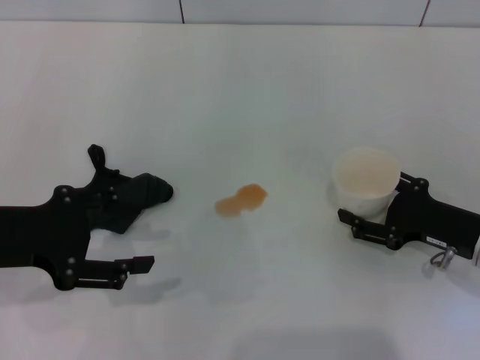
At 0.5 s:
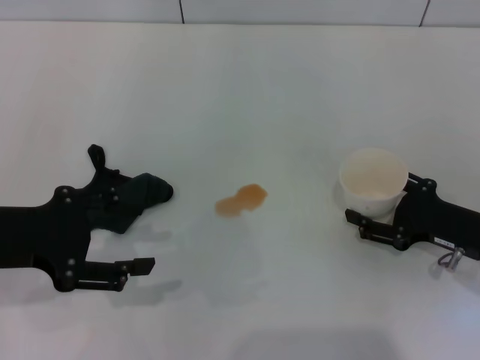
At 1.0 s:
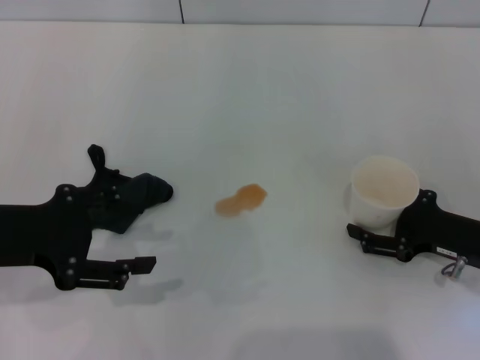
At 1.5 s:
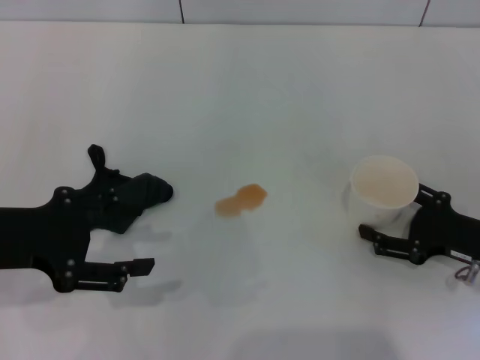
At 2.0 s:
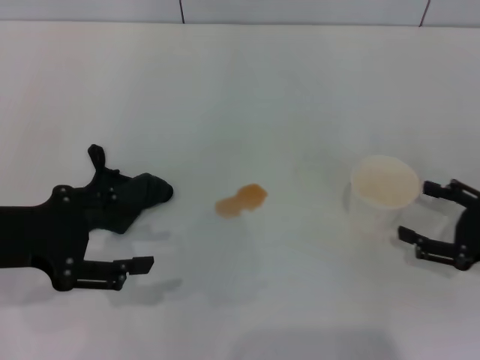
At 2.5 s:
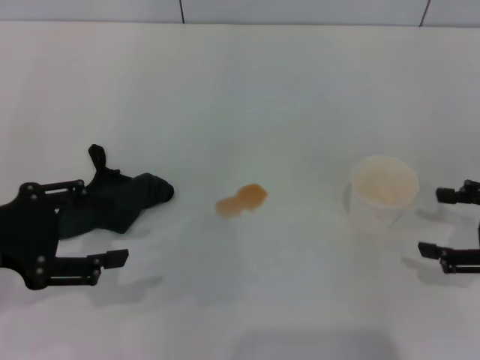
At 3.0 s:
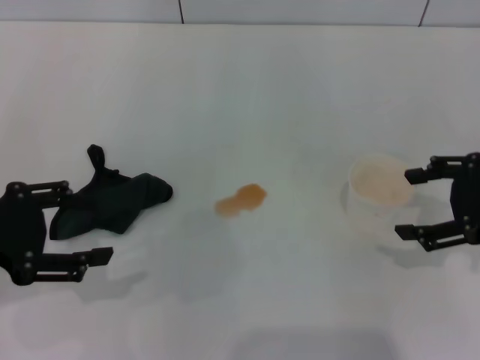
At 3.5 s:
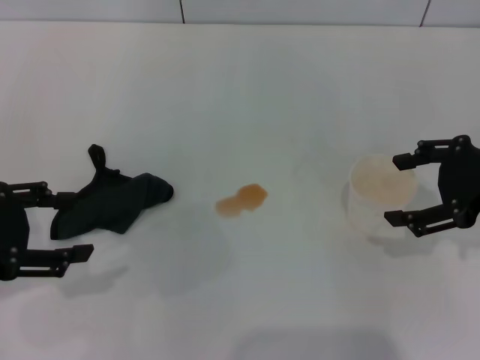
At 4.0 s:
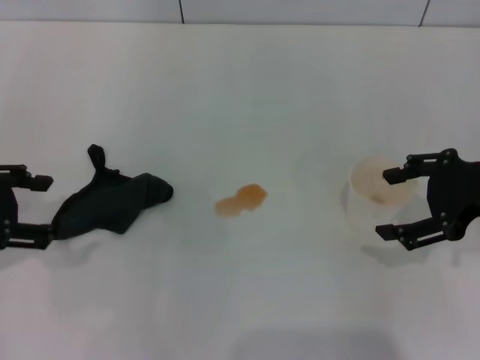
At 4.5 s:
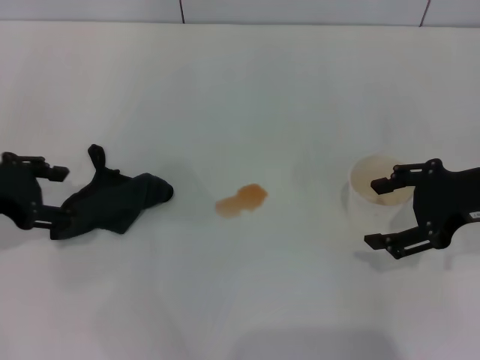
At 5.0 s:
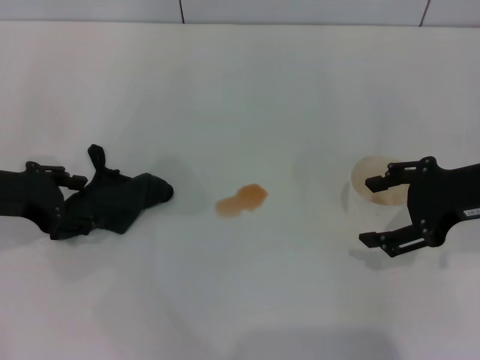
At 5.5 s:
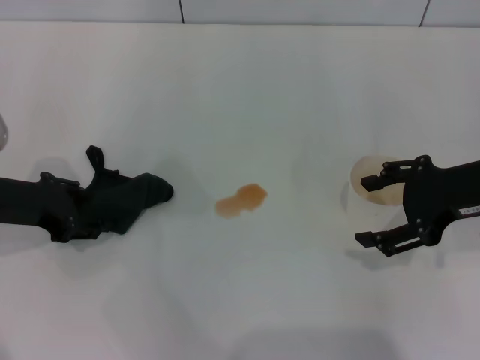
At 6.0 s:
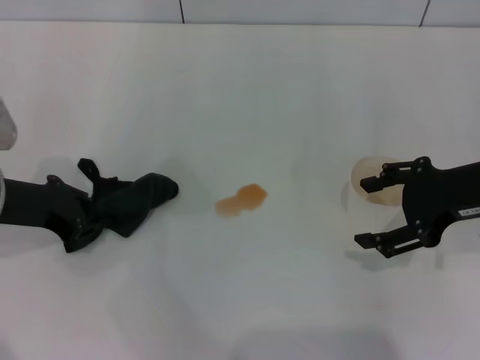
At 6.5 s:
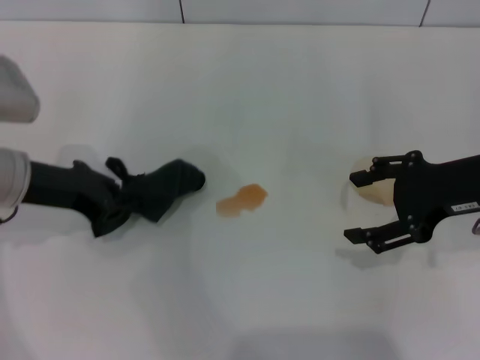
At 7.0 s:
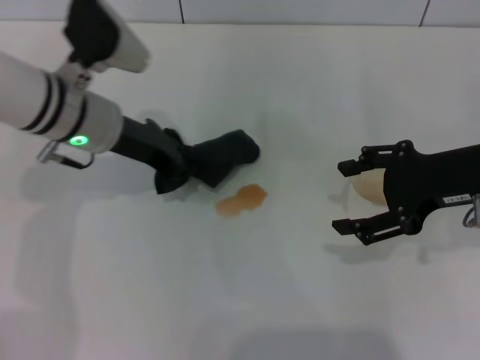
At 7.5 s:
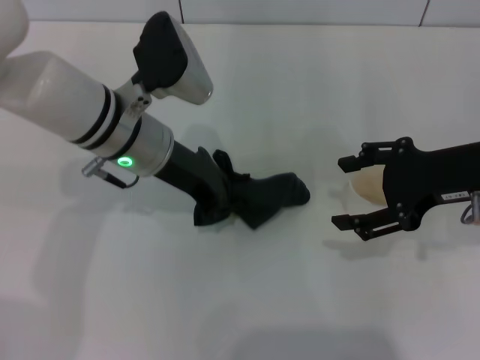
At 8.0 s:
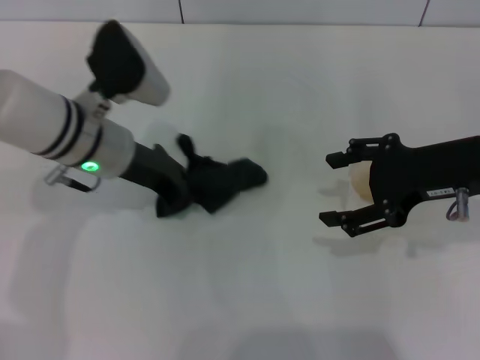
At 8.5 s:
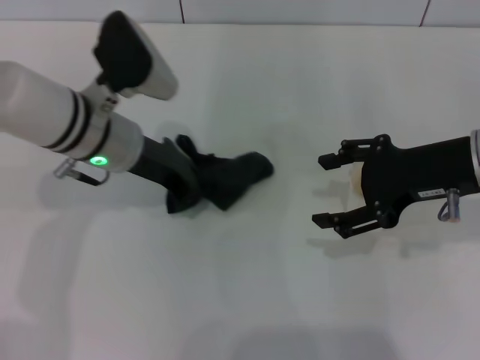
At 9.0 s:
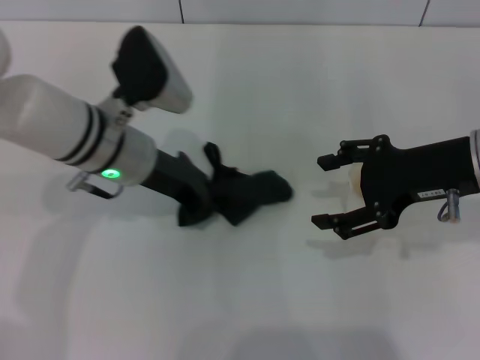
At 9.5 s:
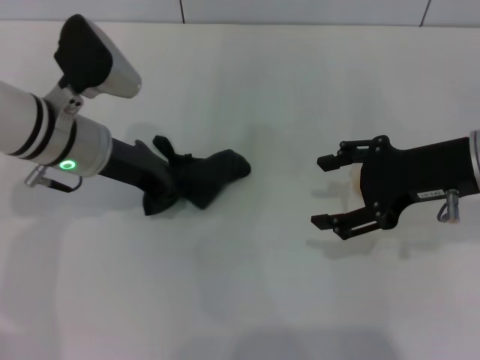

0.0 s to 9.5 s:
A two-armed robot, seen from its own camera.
Step, 2.0 to 5.5 s: Grasp the rag with the left gripper.
Step, 6.0 to 8.5 s: Wipe the stains off the table with the left gripper.
0.0 to 2.0 s: The right gripper moves to the right, roughly 5 cm.
2.0 to 4.0 s: The left gripper moves some 5 cm; the right gripper heads upward, to the left and forward, covering about 15 cm.
4.0 to 5.5 s: The left gripper is displaced downward by about 5 cm.
5.5 to 7.5 s: The left gripper heads to the right, covering approximately 15 cm, and closes.
7.5 to 9.5 s: The left gripper shifts approximately 5 cm to the left.

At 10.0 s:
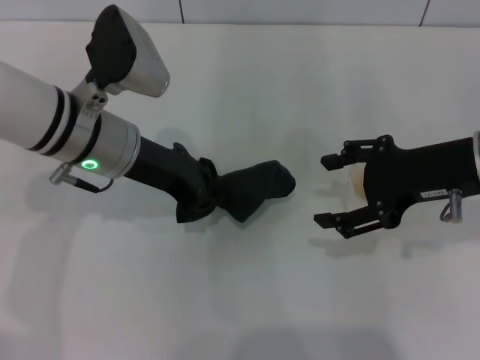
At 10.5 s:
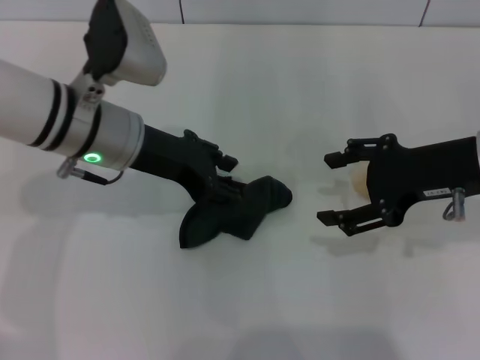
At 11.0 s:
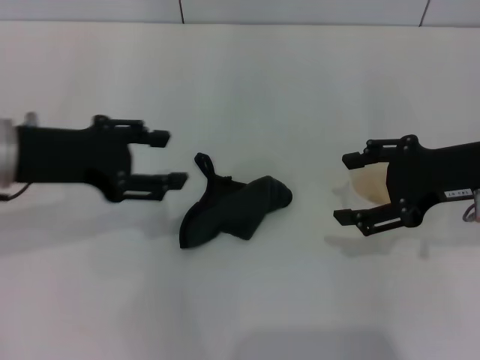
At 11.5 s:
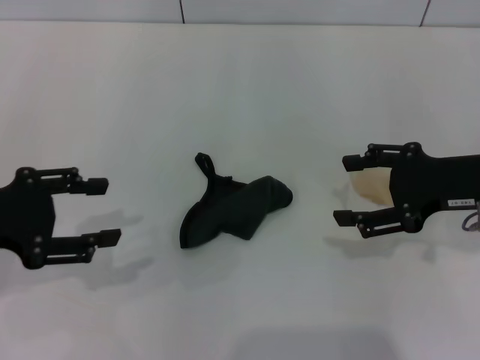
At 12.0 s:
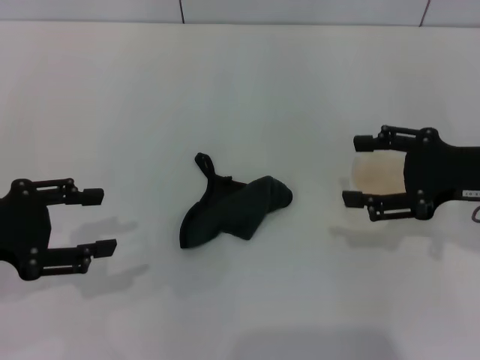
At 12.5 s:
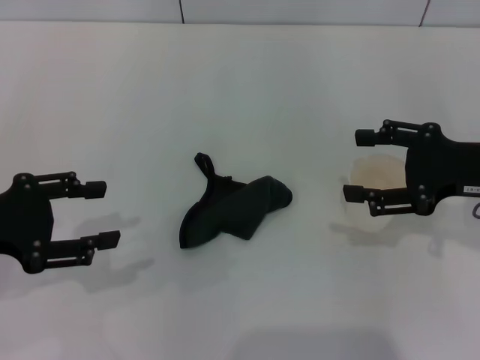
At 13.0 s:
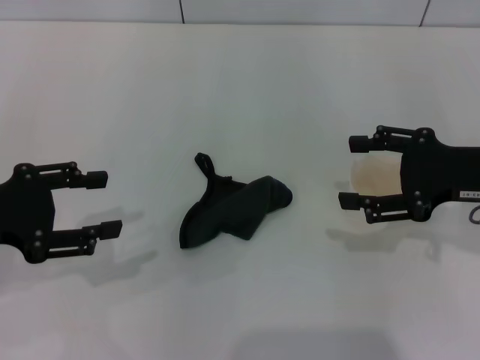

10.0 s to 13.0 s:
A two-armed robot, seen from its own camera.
10.0 to 11.5 s: The left gripper shifts some 20 cm to the left and backward, and opens.
11.5 to 13.0 s: The grippers stay close to where they were, moving slightly.

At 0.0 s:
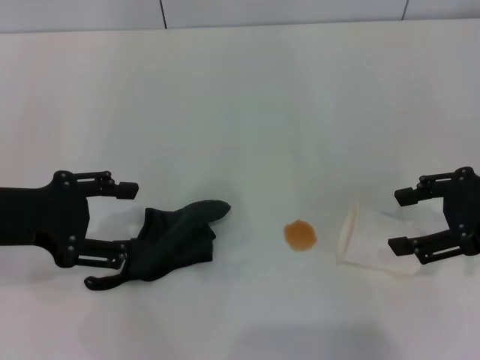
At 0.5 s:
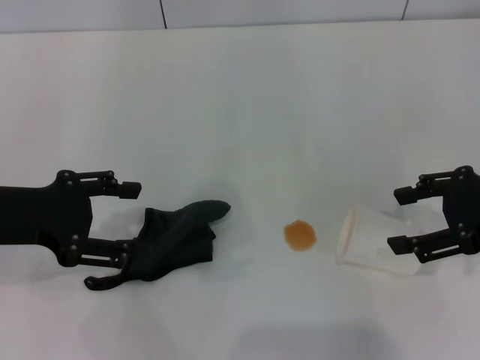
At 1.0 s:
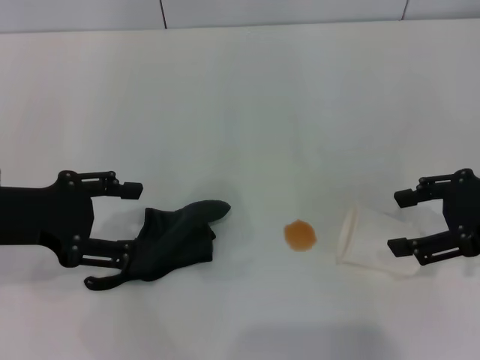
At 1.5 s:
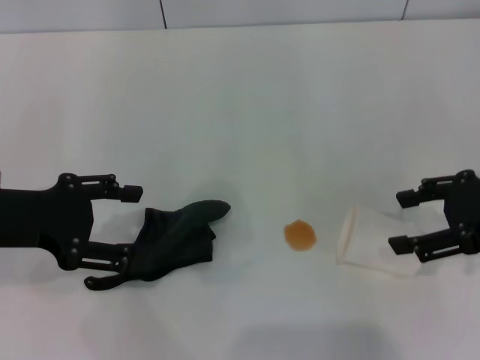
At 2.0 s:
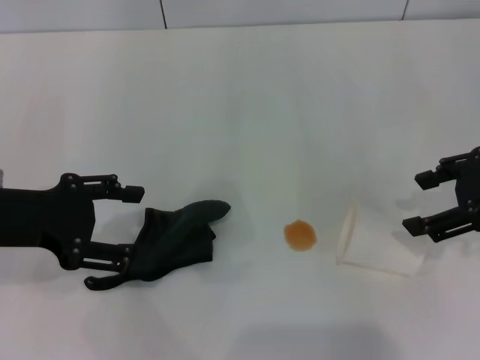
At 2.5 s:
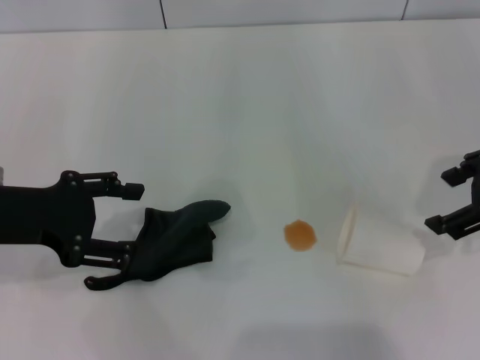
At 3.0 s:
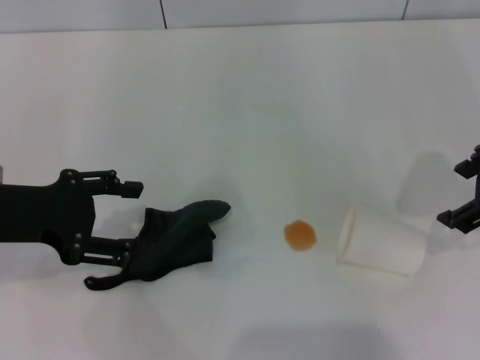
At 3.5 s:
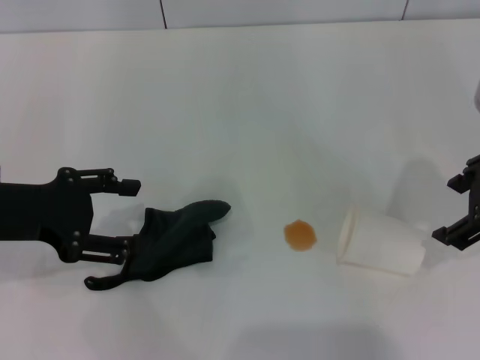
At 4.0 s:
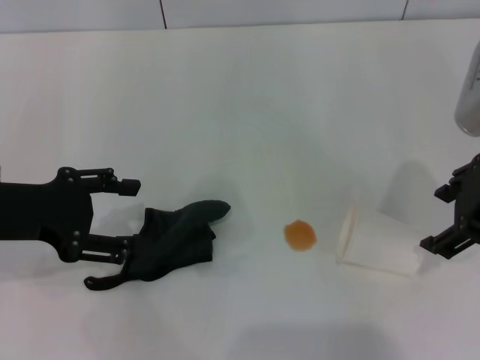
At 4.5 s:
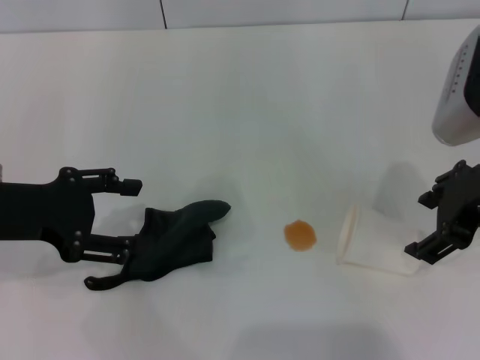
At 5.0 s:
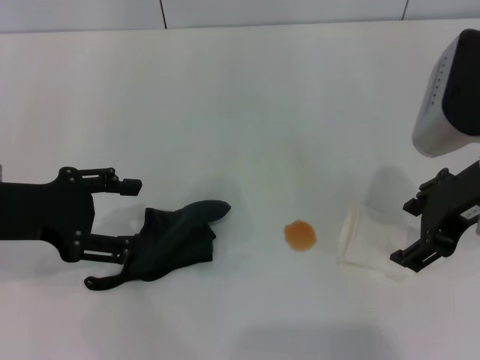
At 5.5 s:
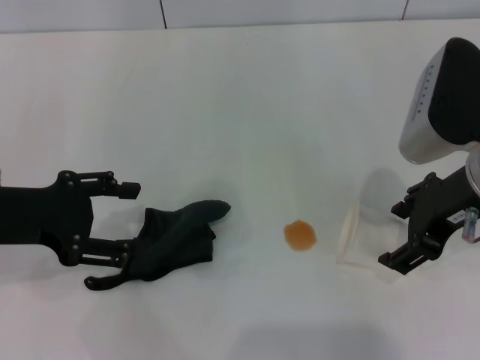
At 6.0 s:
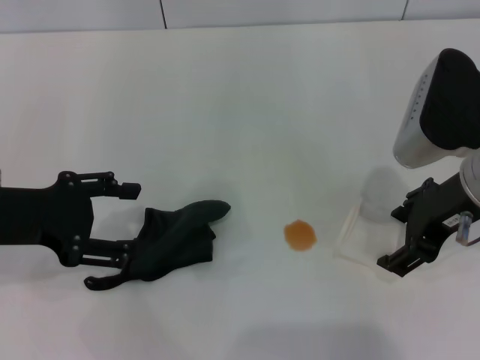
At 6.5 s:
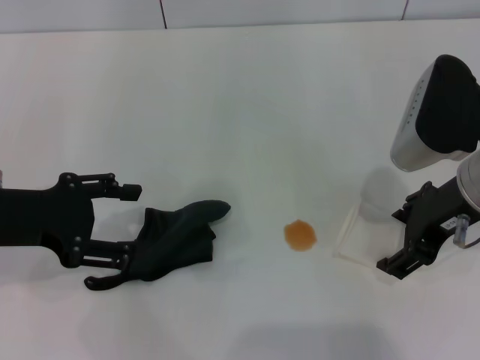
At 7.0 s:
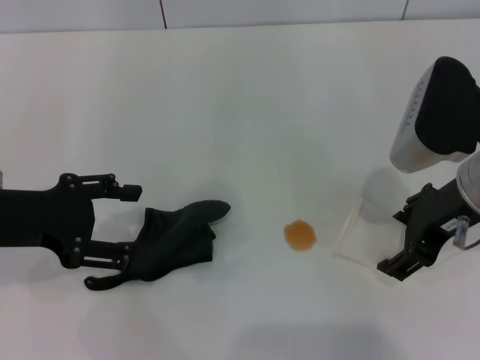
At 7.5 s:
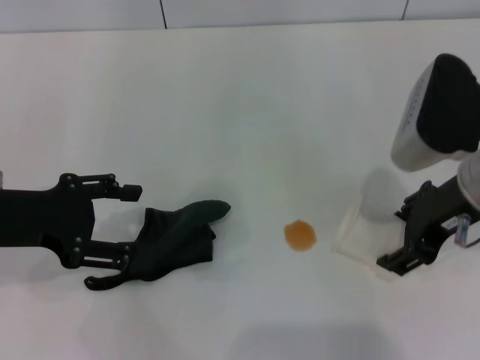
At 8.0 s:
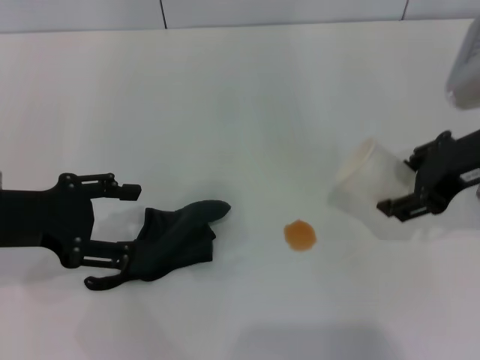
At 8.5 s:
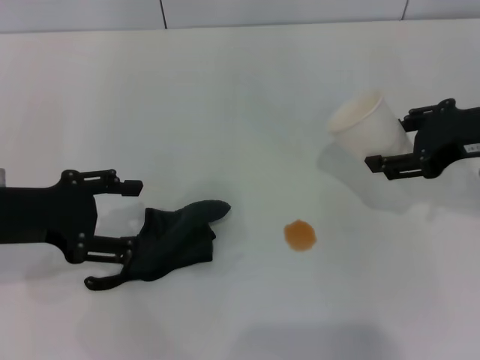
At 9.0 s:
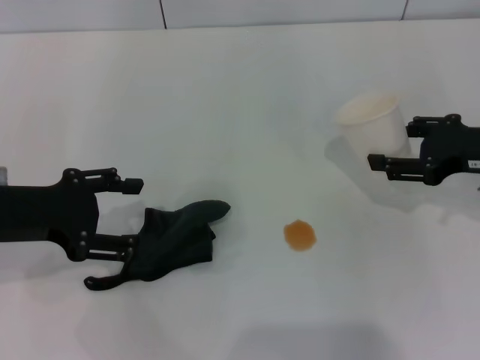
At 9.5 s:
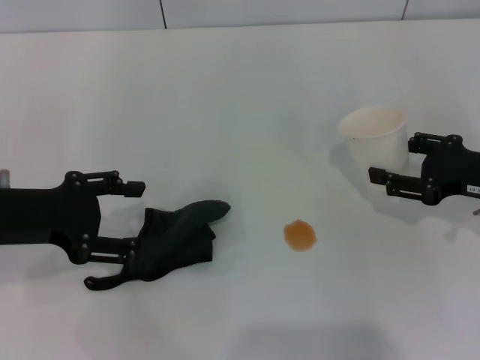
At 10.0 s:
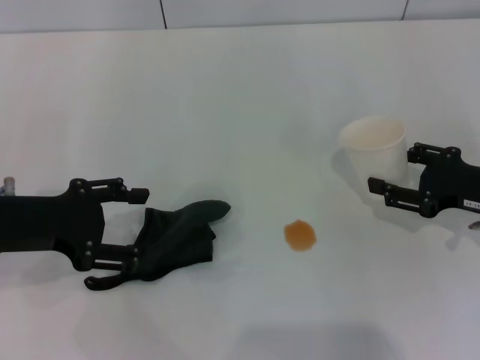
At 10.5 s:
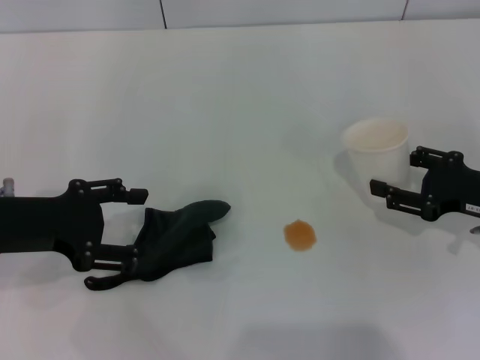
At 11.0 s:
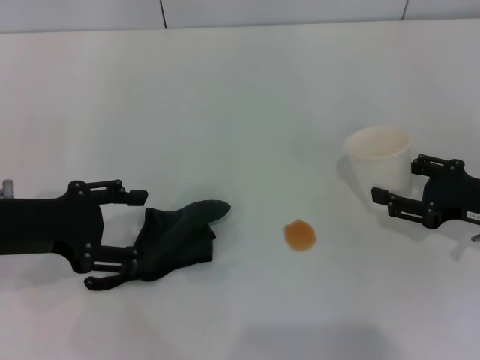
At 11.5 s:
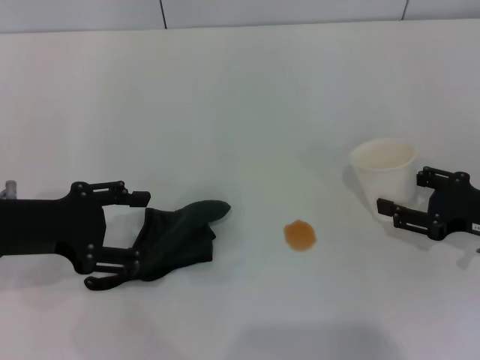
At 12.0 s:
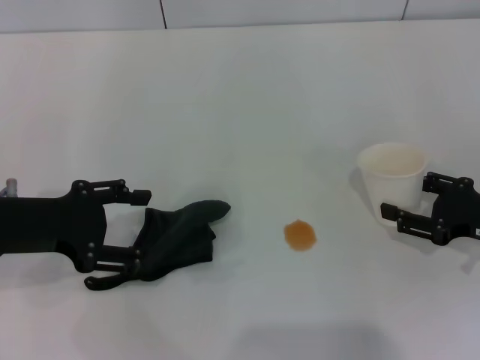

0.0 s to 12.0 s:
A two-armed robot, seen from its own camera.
Step, 0.0 to 7.0 s: Grasp the paper cup with the right gripper.
0.0 to 2.0 s: There are only small adjustments of the grippers.
2.0 to 4.0 s: The right gripper heads to the left, covering about 5 cm.
4.0 to 6.0 s: The right gripper changes place by roughly 5 cm.
6.0 to 8.0 s: The right gripper closes.
8.0 to 10.0 s: The right gripper moves downward and to the right, some 15 cm.
10.0 to 12.0 s: There are only small adjustments of the grippers.

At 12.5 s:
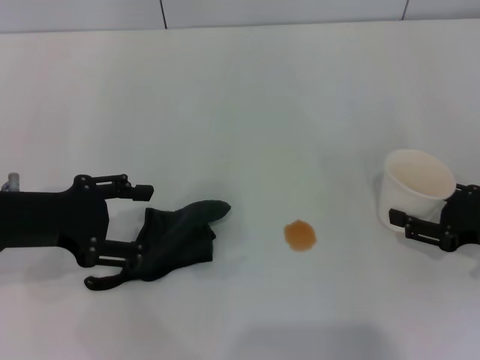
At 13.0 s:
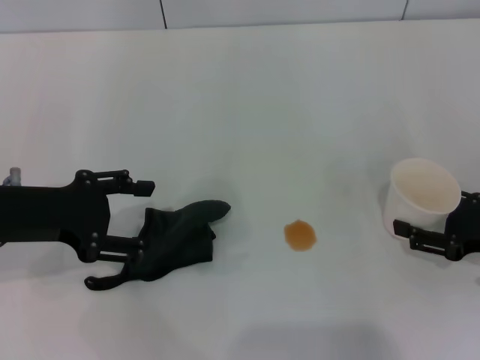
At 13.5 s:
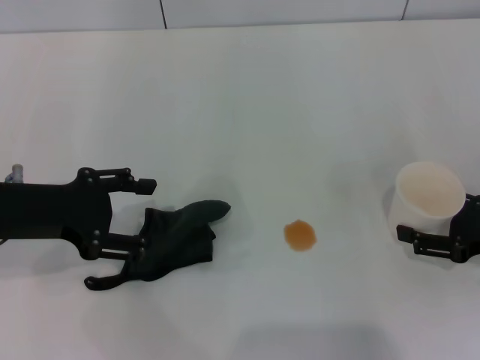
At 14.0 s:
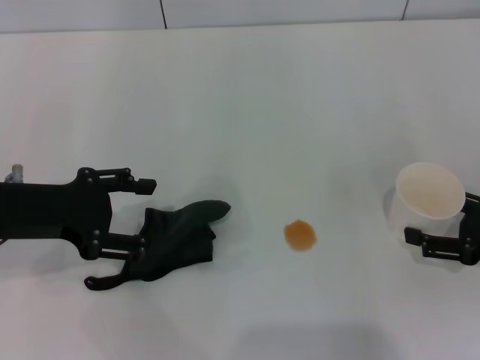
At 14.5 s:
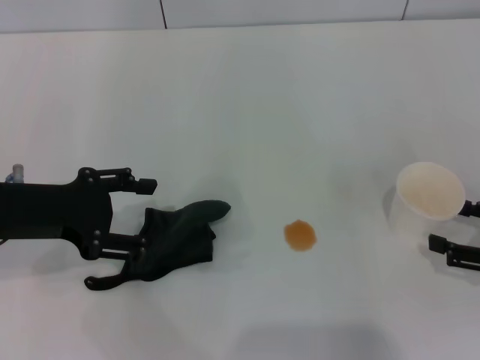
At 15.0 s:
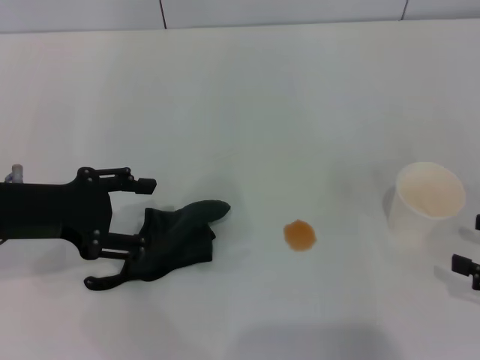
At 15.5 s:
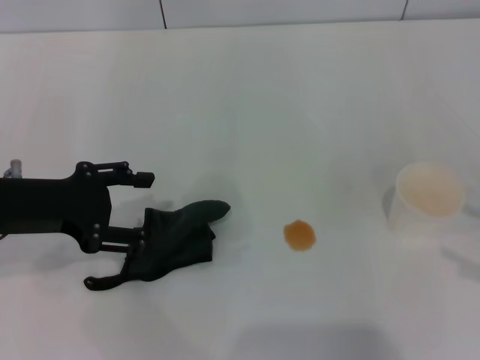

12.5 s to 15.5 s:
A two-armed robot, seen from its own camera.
12.5 to 14.0 s: The right gripper opens.
14.0 to 15.5 s: The right gripper heads upward and backward, covering roughly 10 cm.
